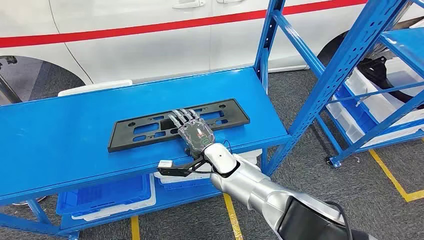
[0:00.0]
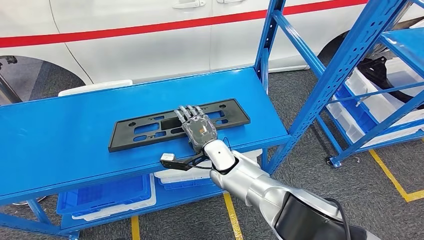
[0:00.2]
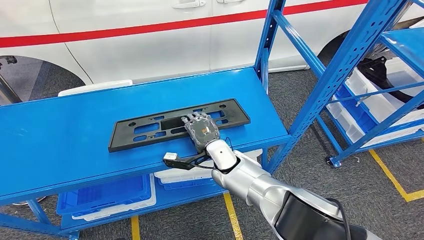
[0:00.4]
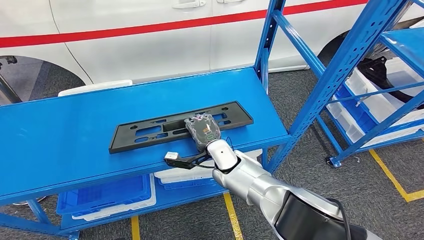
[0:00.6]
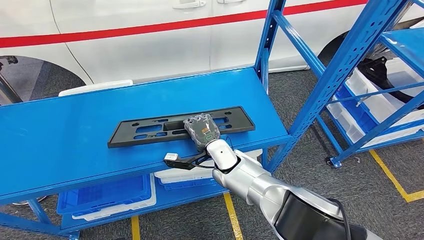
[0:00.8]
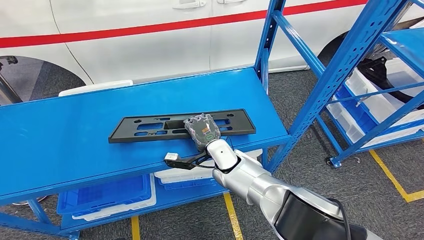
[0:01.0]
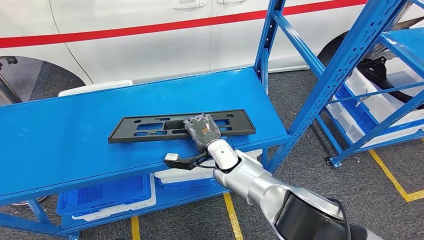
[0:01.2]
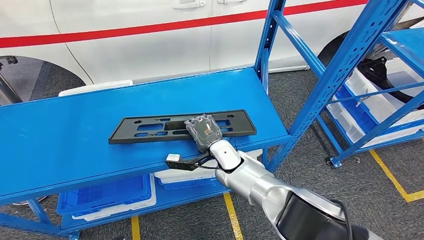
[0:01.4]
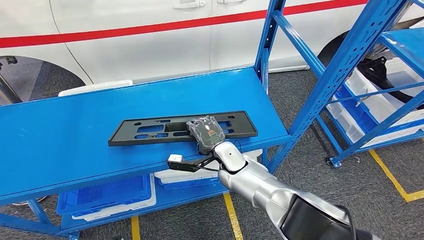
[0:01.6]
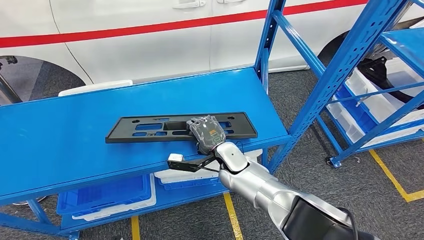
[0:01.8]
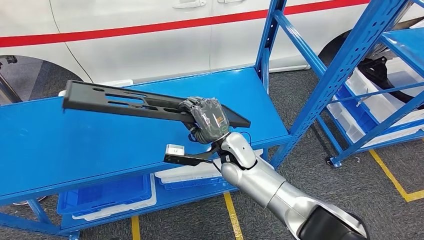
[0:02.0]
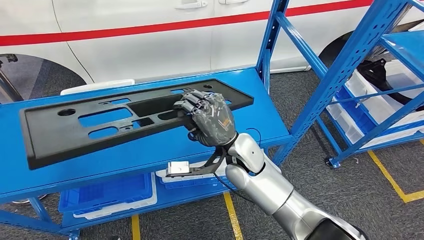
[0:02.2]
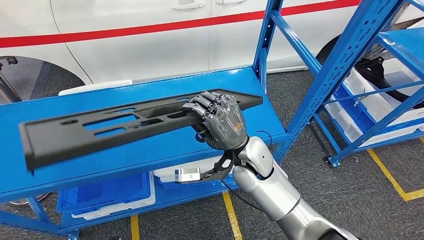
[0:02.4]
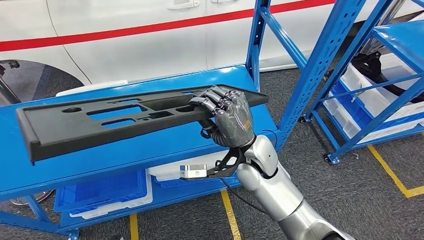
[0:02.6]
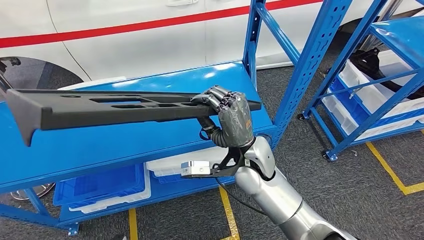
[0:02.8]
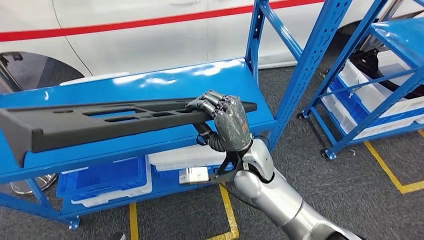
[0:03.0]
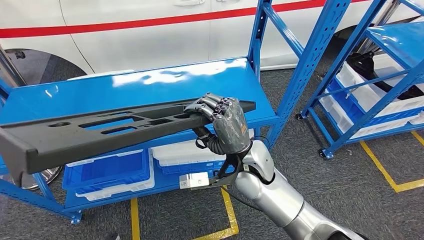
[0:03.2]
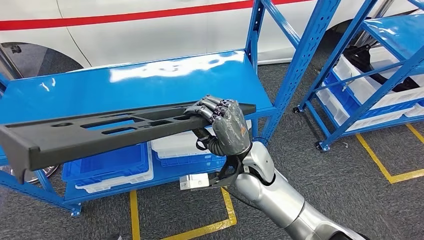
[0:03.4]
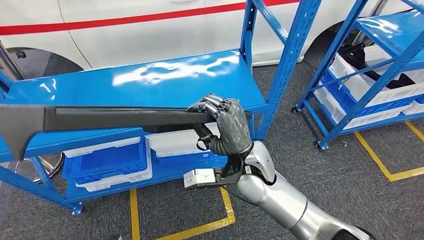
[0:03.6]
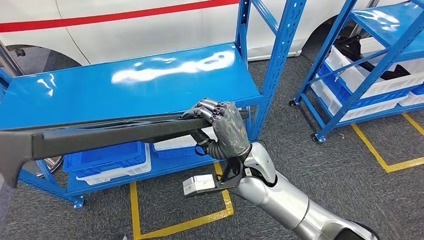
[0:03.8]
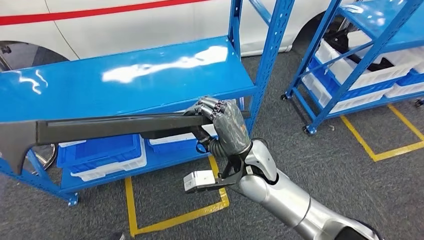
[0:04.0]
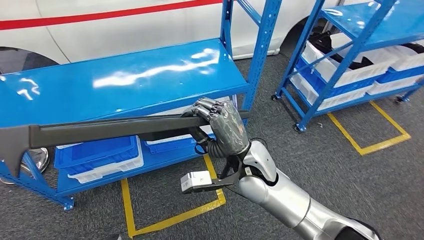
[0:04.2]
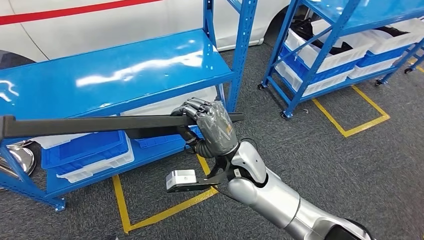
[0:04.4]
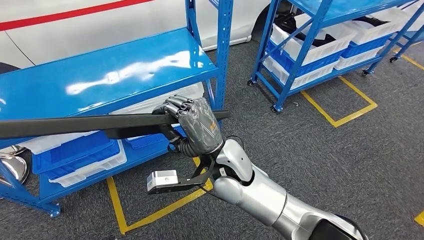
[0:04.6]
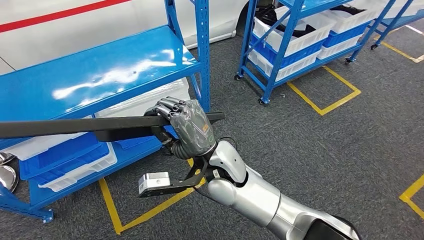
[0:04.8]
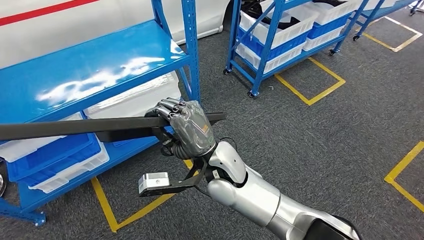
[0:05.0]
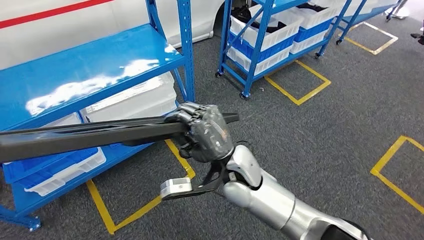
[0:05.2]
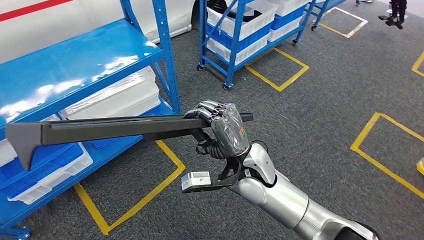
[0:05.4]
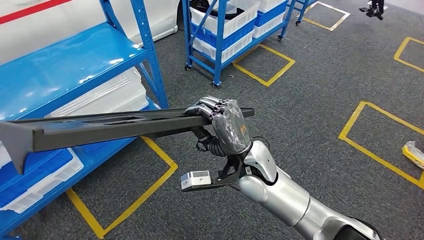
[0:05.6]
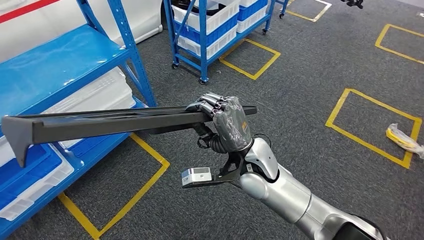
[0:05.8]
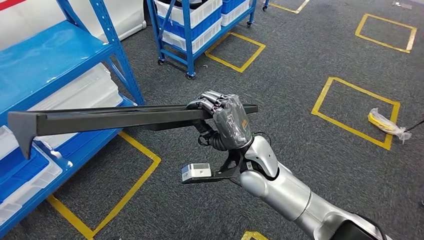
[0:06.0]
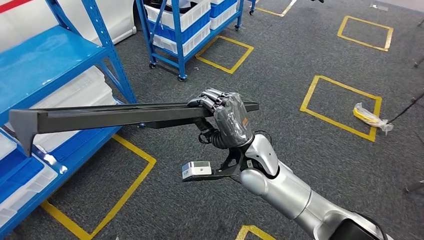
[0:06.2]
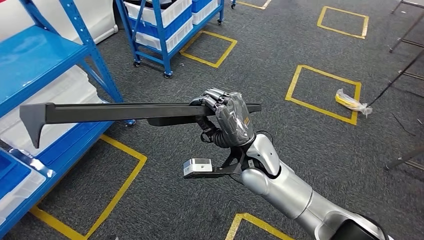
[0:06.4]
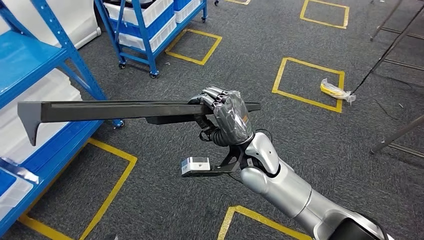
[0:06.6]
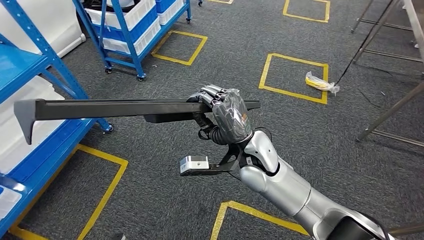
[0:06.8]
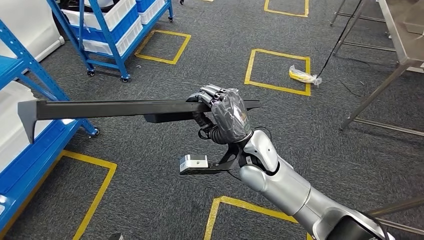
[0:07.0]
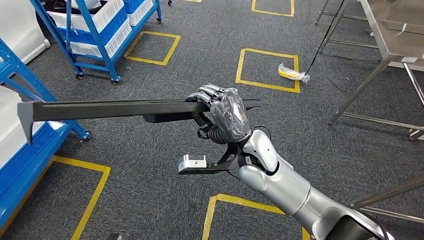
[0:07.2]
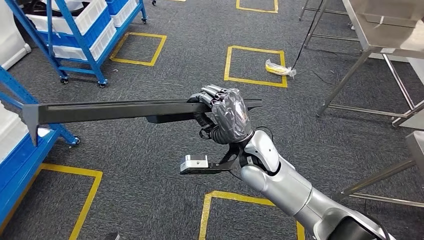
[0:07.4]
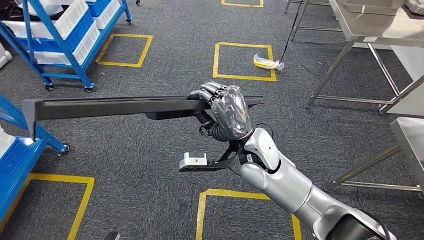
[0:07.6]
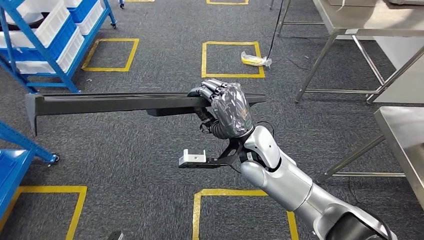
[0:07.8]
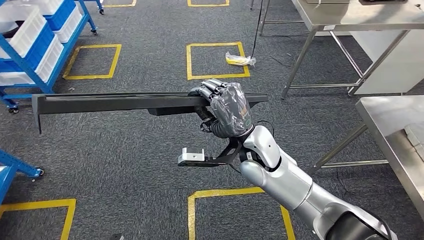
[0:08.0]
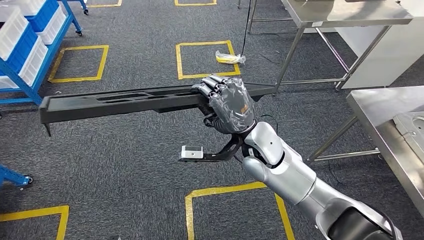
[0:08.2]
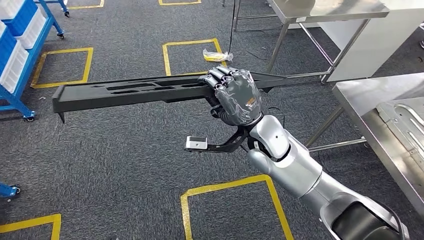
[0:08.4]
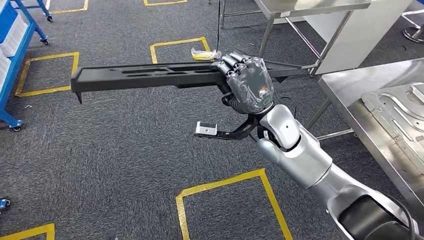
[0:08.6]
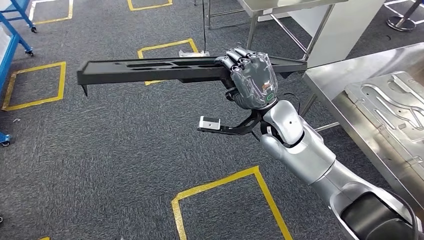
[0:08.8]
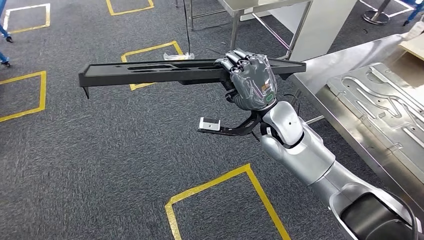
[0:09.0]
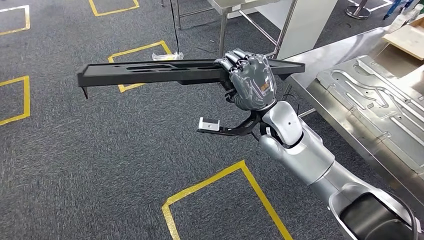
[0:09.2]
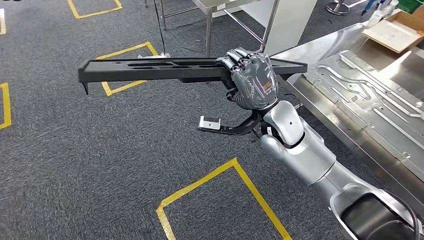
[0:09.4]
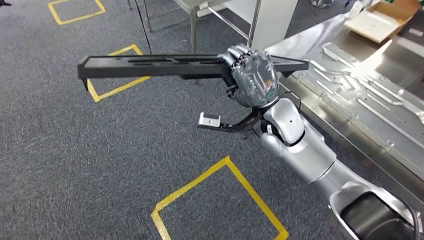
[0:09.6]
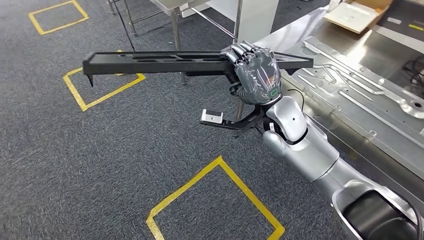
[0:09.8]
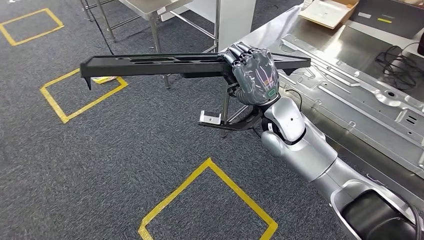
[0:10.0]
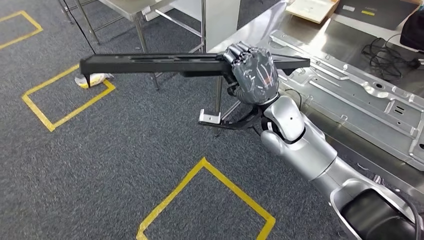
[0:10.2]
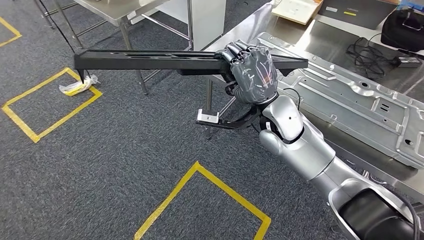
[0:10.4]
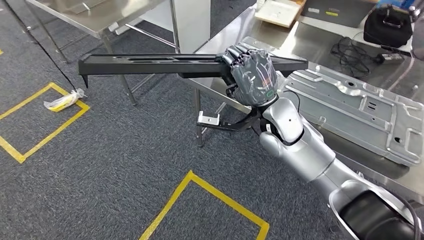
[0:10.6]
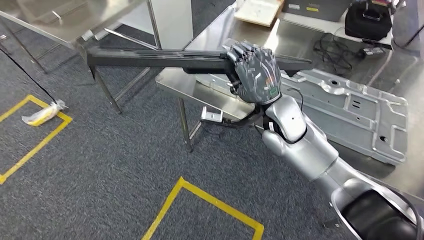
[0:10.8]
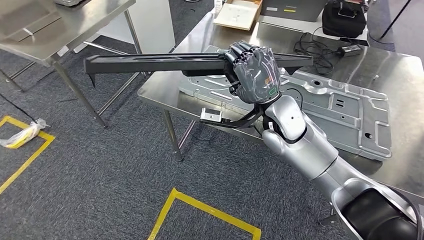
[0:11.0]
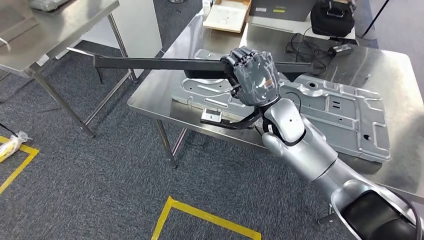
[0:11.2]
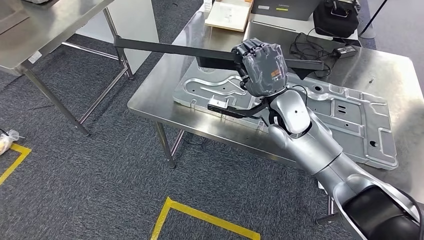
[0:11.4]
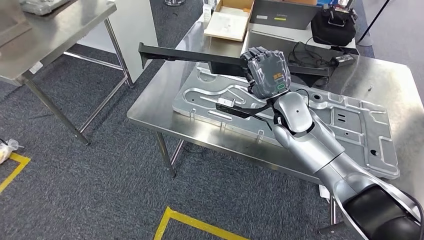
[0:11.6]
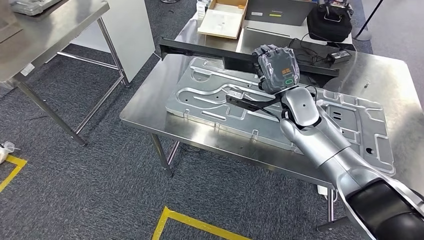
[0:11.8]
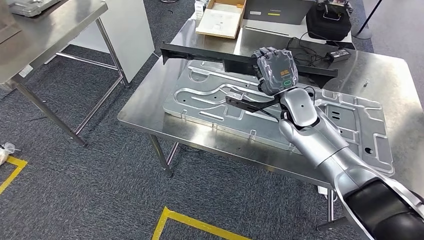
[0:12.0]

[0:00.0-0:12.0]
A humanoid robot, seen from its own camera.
Step, 0:00.0 to 0:03.6: Pick up the large material from the shelf.
Step, 0:06.6 to 0:12.0: Move the large material to the workbench.

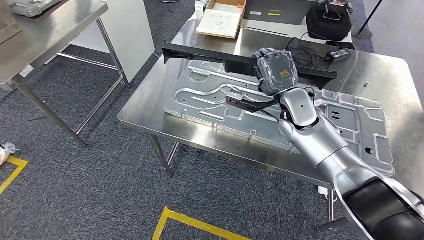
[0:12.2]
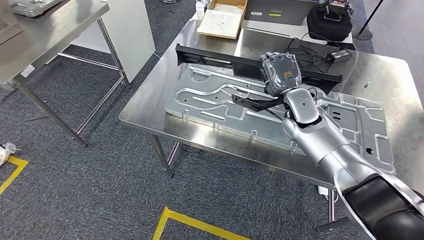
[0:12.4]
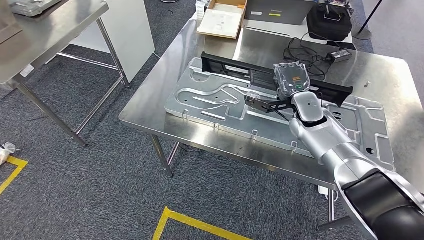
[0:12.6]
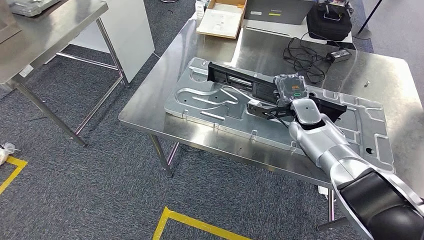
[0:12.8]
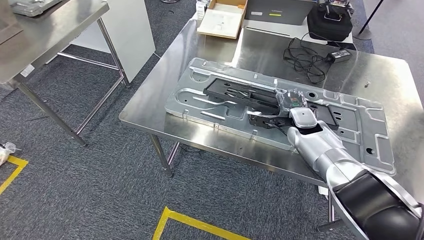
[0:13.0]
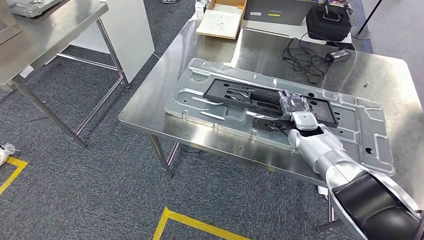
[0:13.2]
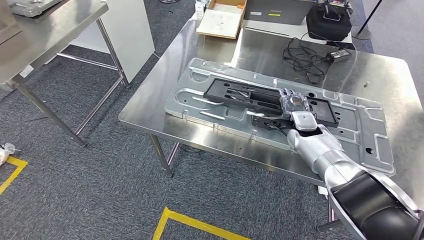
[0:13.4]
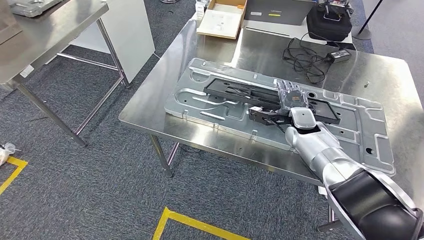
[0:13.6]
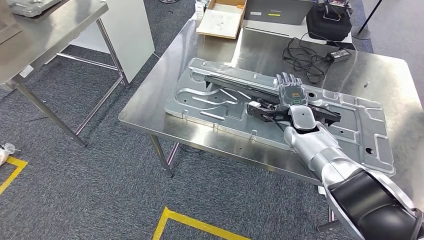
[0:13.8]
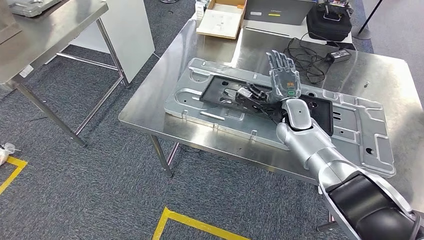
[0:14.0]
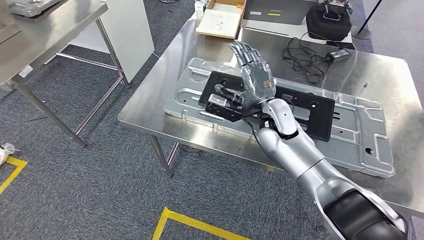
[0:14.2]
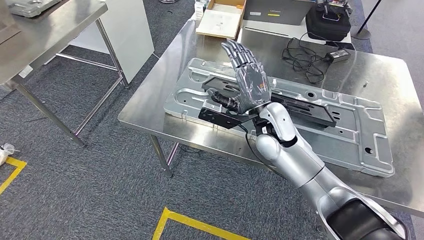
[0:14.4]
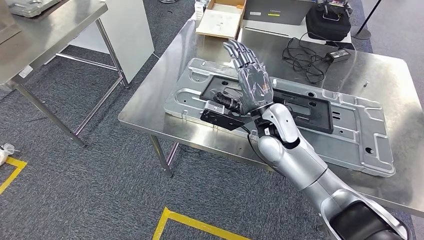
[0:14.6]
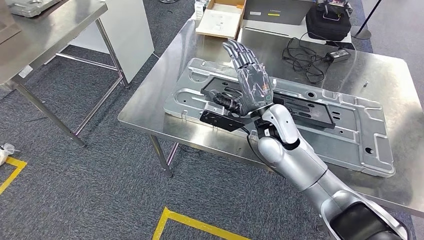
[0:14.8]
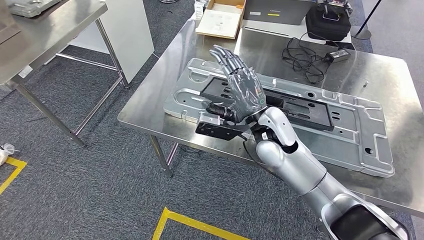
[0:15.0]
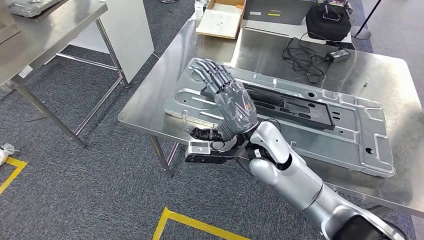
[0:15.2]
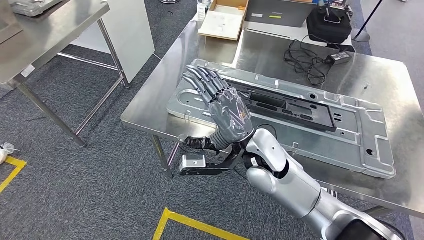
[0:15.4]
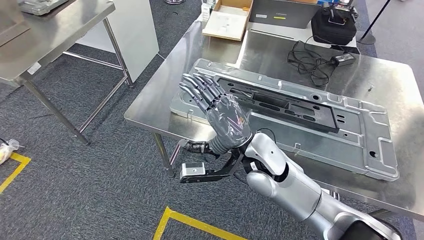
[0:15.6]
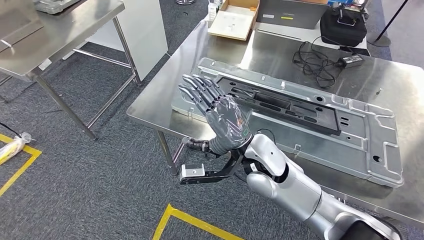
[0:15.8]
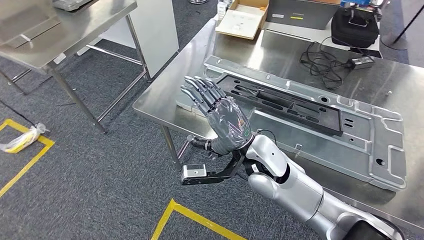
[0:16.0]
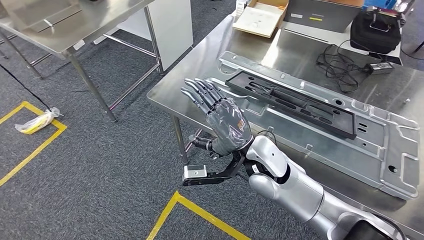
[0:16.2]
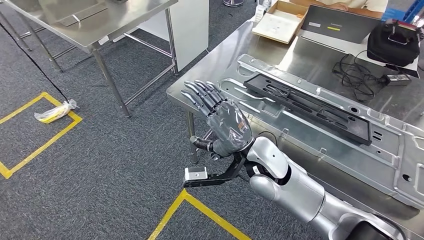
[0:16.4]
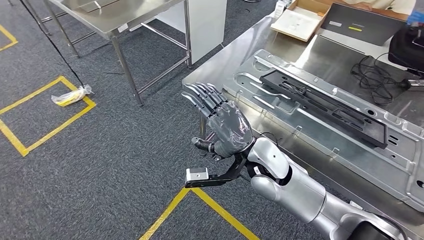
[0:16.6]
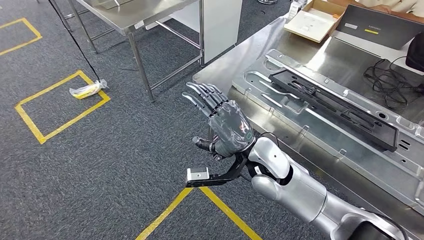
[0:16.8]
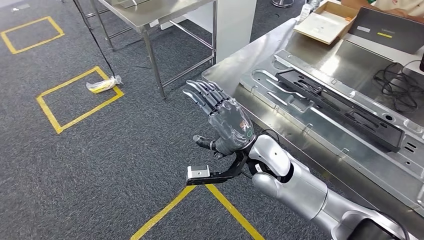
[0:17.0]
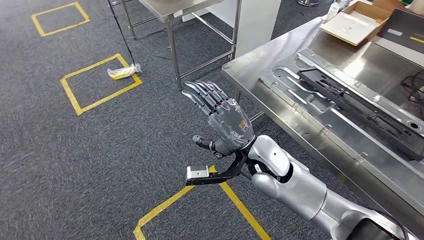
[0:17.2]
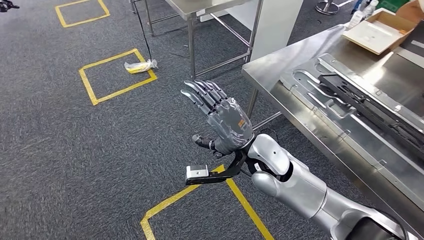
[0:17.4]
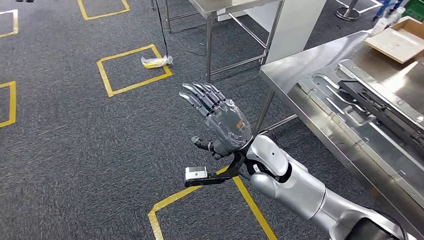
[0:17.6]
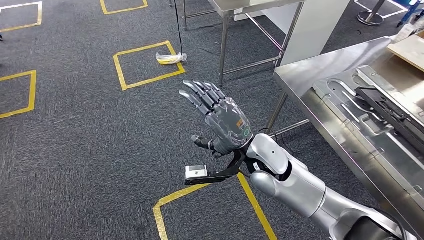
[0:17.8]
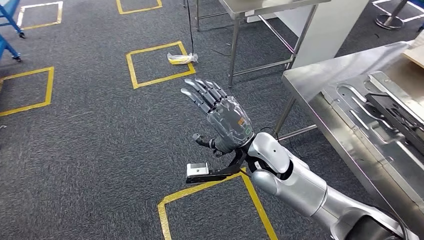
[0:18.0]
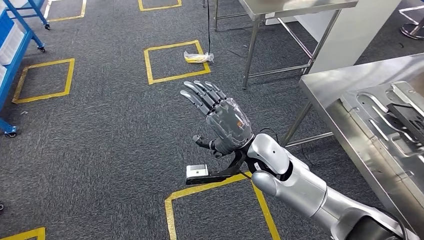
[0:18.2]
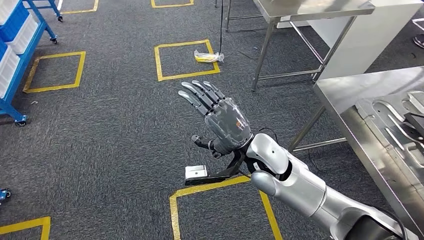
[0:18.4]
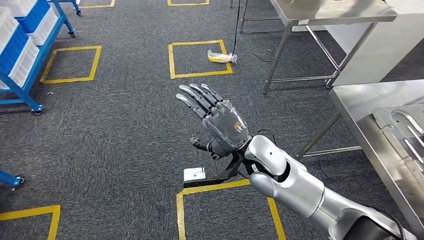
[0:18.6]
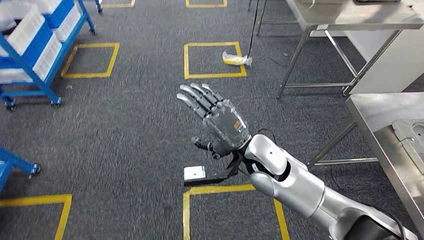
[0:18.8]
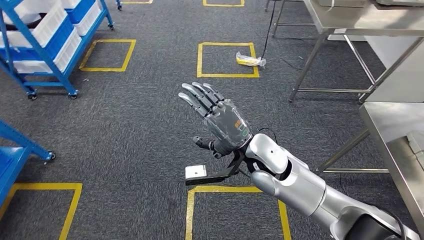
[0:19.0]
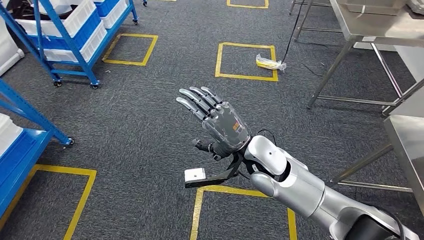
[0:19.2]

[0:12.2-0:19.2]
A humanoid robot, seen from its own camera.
Step, 0:12.6 to 0:15.0: Insert the large material into the corresponding slot on the workbench.
0:12.2 to 0:13.6: The right hand moves downward and to the right, approximately 10 cm.
0:13.6 to 0:15.0: The right hand heads to the left, upward and backward, covering approximately 20 cm.
